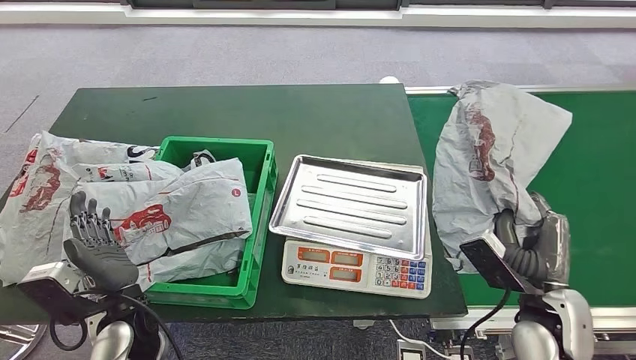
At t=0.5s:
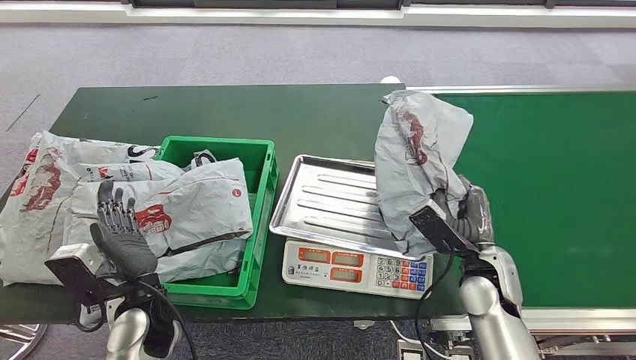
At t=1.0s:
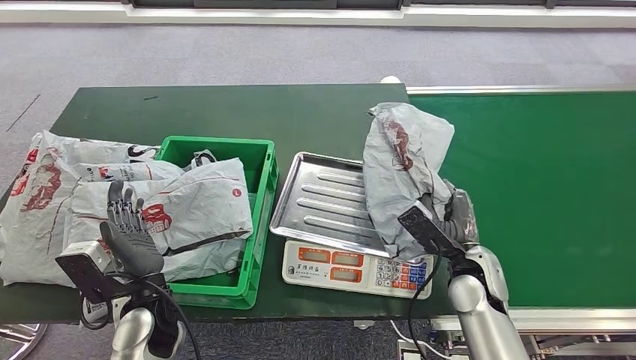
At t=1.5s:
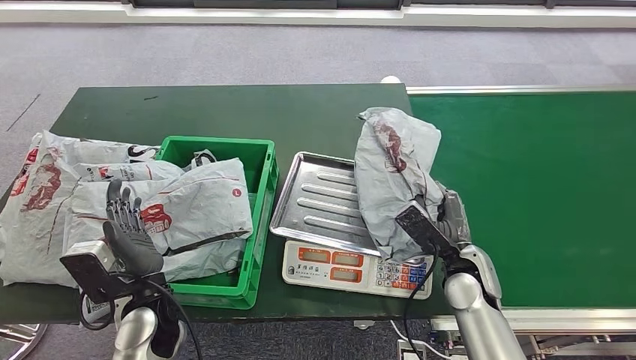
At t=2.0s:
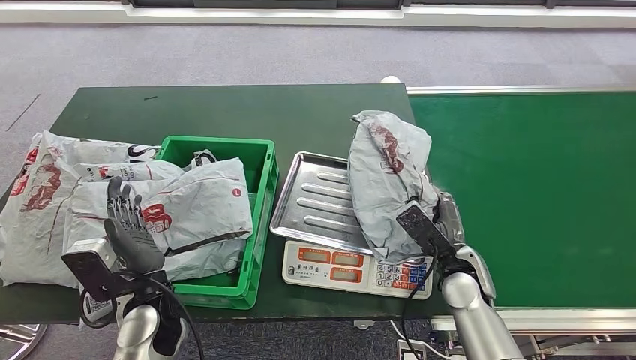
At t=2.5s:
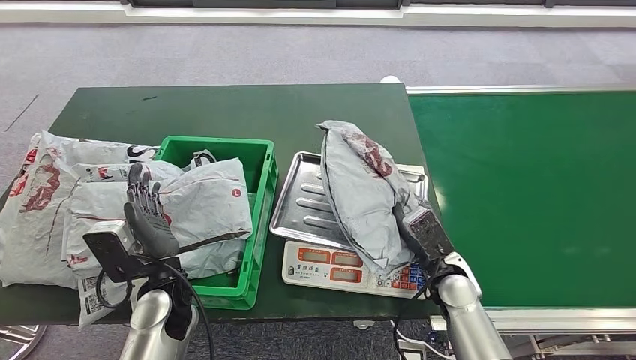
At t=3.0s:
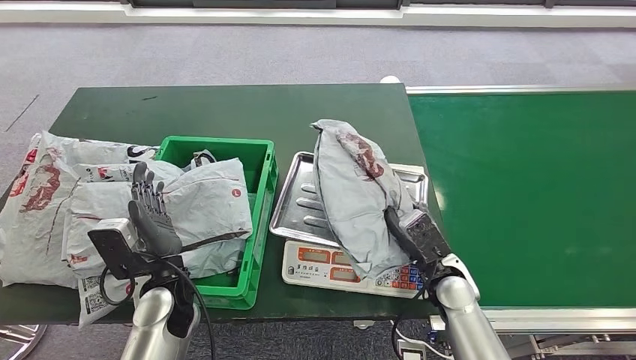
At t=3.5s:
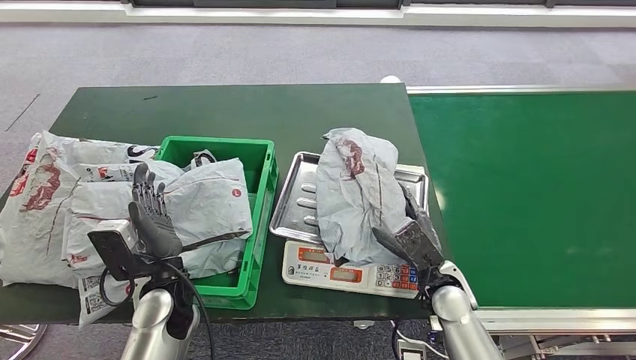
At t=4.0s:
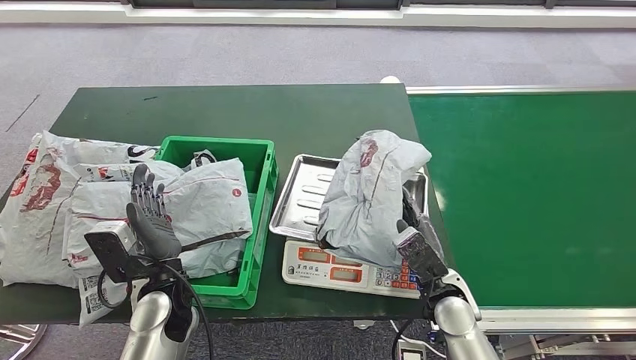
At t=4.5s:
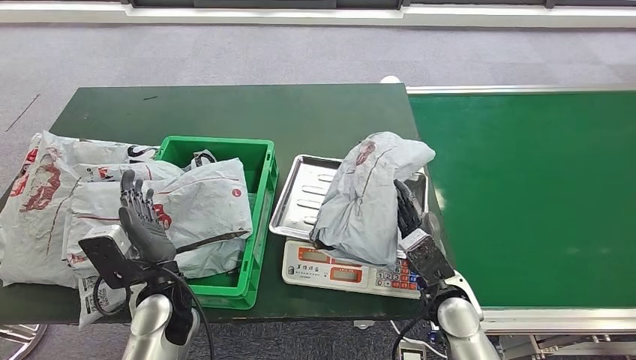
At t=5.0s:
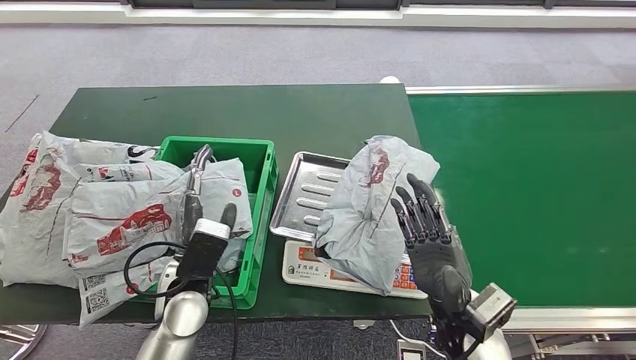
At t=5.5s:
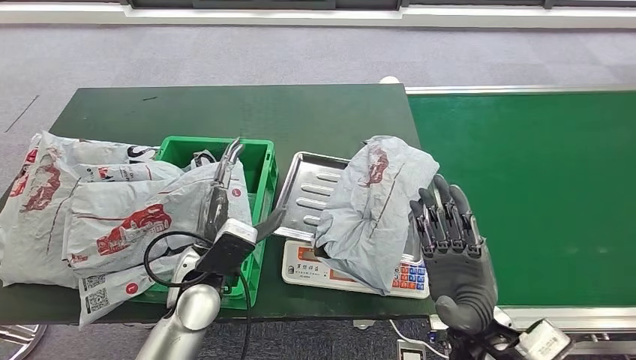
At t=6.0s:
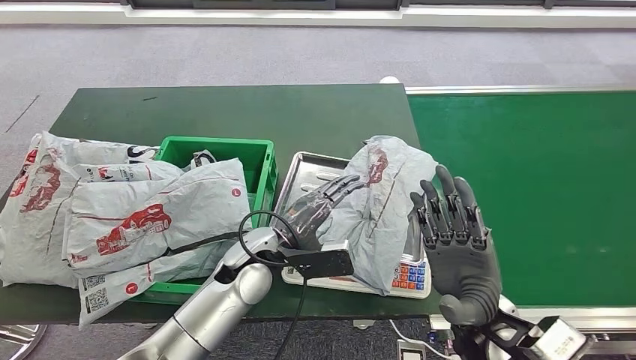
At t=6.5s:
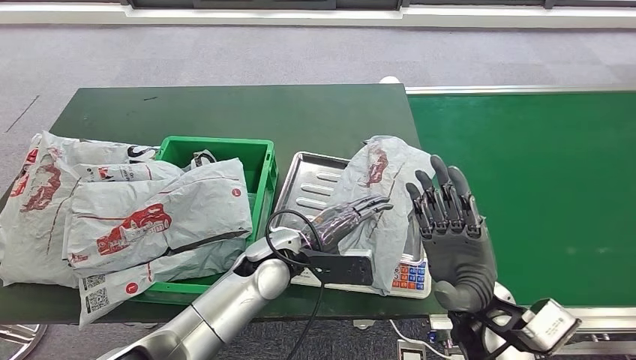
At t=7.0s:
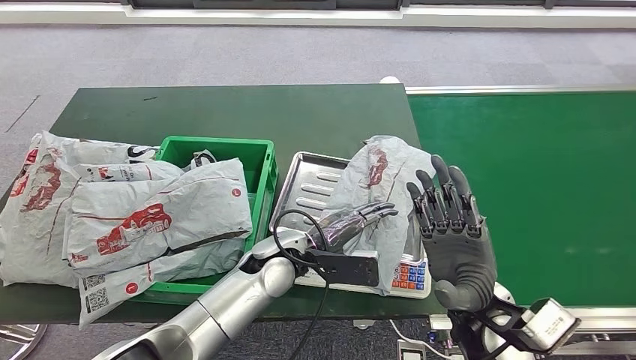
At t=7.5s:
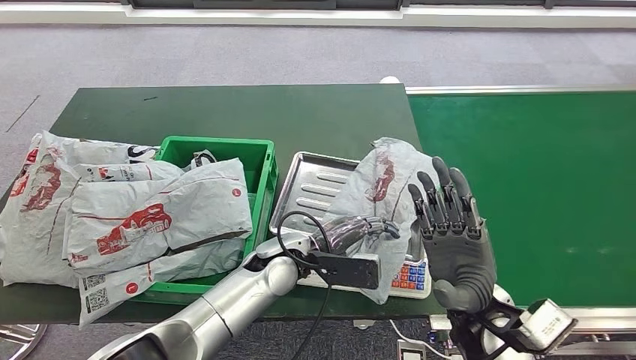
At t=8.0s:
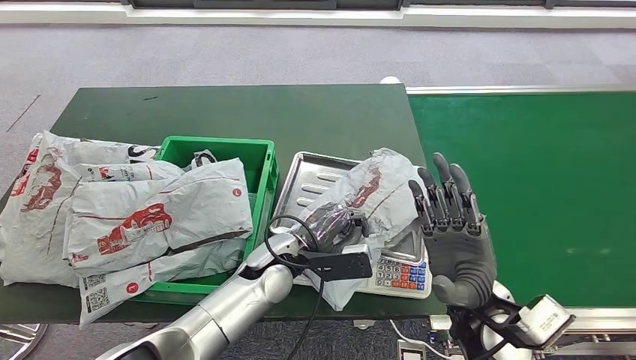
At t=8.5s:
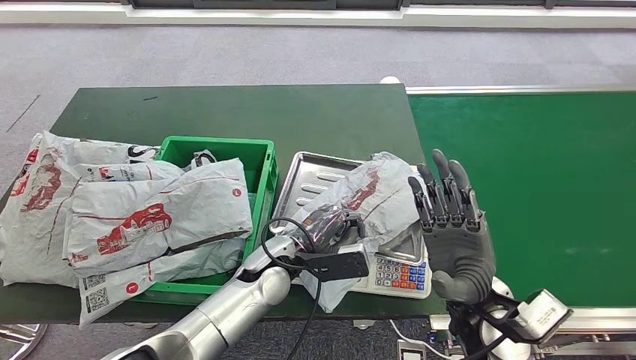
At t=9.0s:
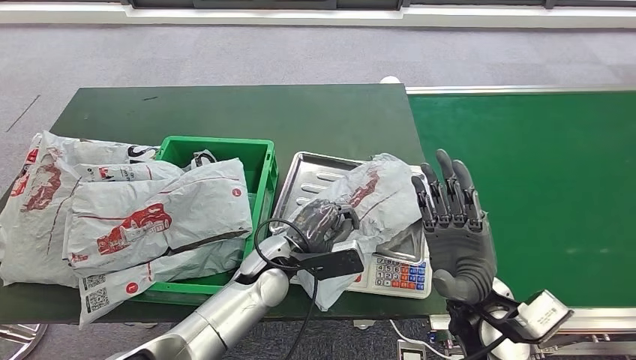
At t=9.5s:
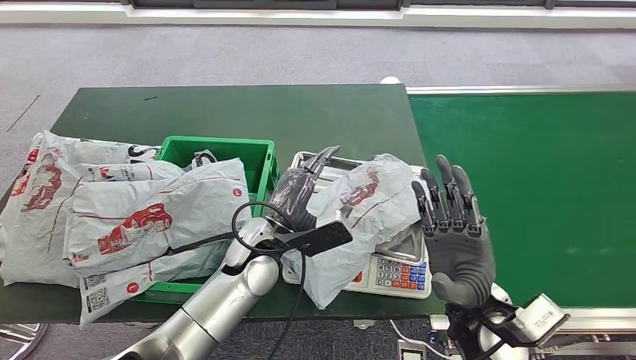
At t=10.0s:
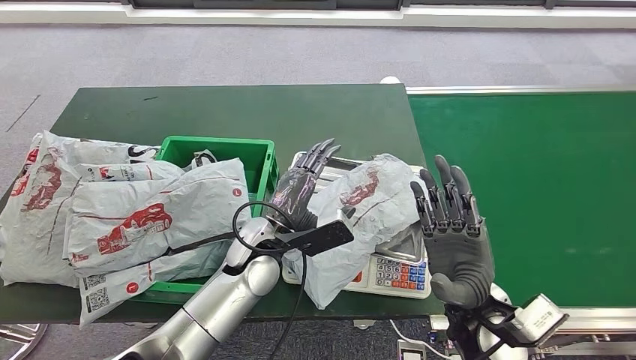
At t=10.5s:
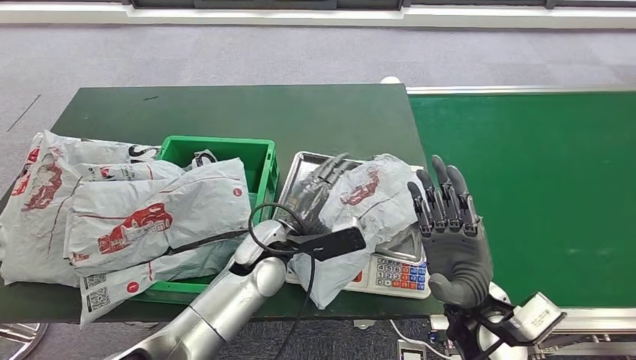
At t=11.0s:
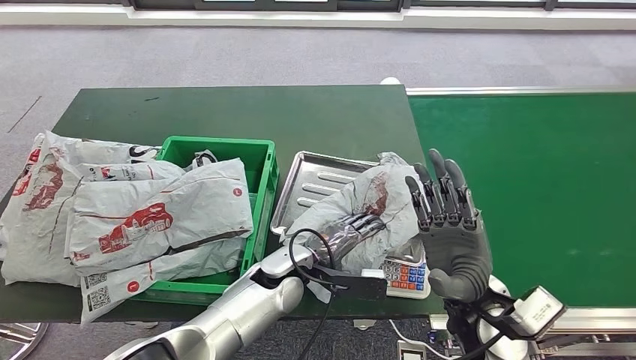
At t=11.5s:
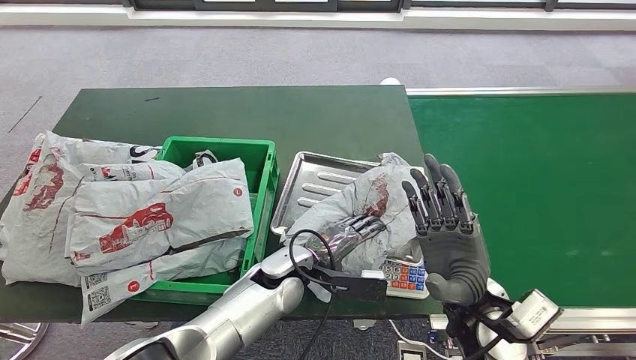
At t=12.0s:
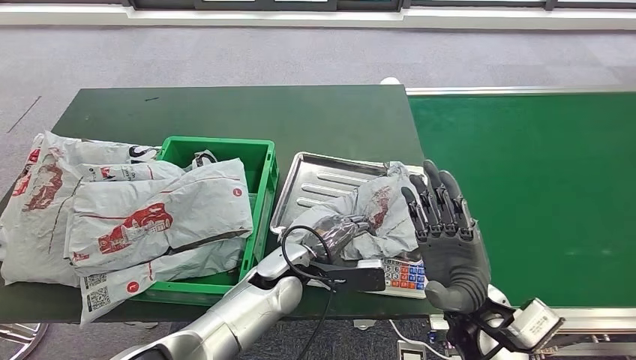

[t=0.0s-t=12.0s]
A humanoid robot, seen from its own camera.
Step, t=0.5s to t=5.0s: Place the parcel onto the inbound machine.
t=2.0s to t=4.0s: The right hand ends up roughly 5 cm from where it was.
t=4.0s to t=6.0s: The left hand goes some 15 cm to the right and forward. Meanwhile the right hand goes roughly 10 cm upward.
t=6.0s to t=8.0s: There are only small adjustments of the hands.
t=10.0s to t=12.0s: The left hand travels downward by approximately 5 cm.

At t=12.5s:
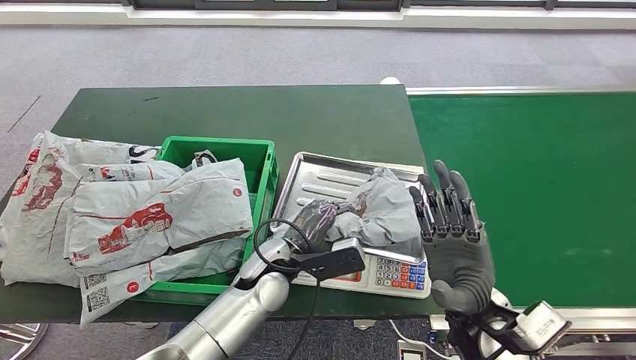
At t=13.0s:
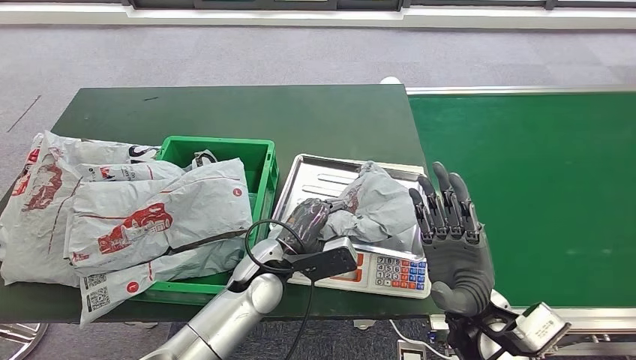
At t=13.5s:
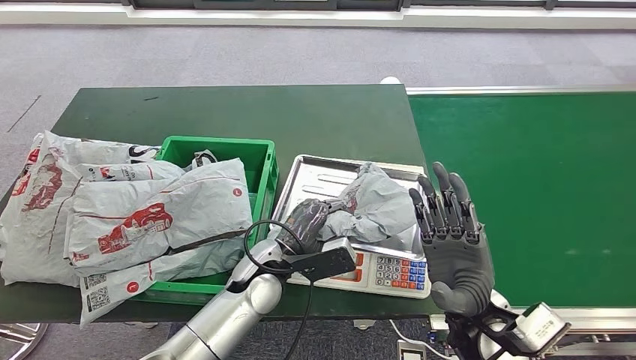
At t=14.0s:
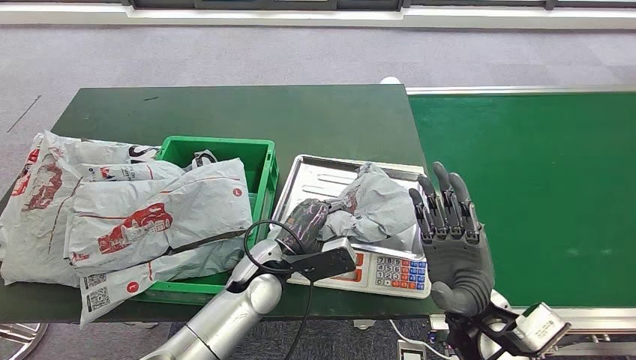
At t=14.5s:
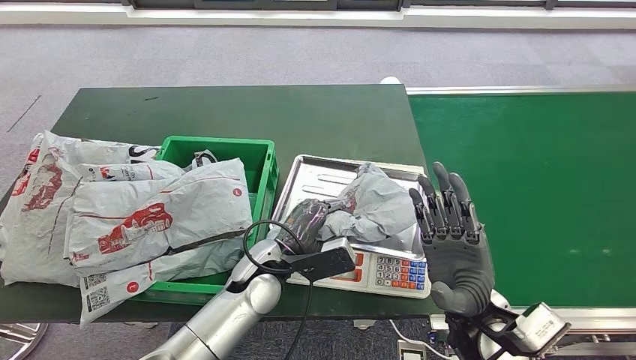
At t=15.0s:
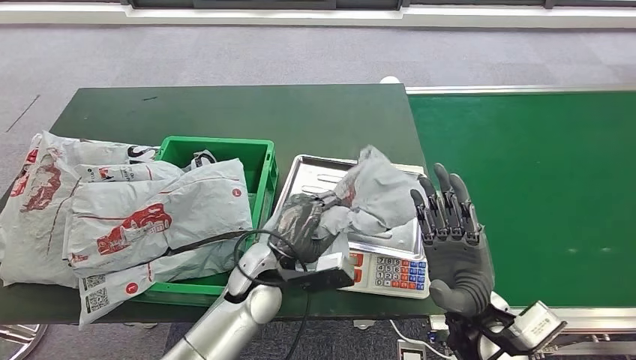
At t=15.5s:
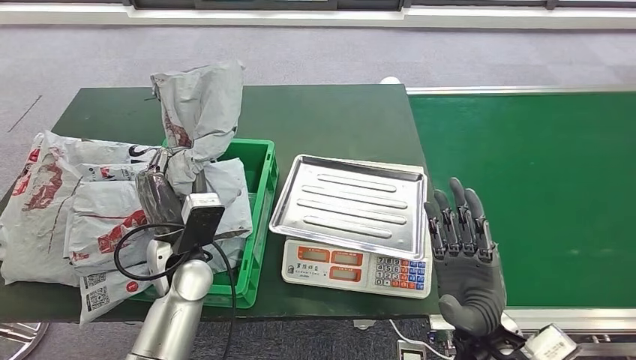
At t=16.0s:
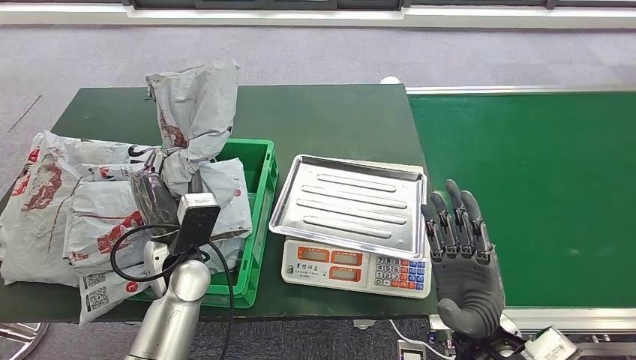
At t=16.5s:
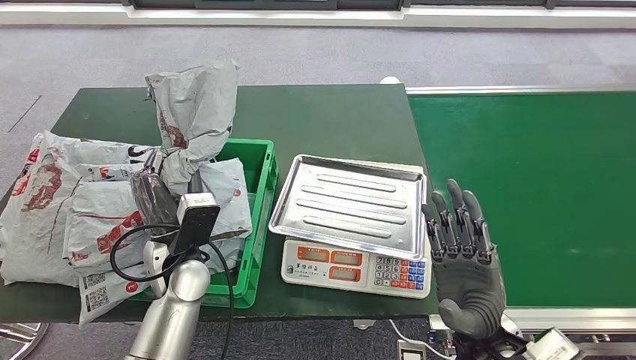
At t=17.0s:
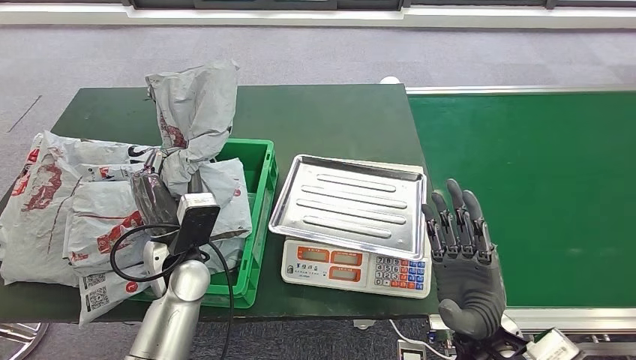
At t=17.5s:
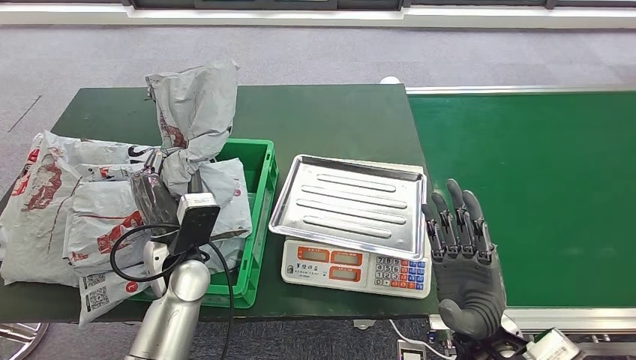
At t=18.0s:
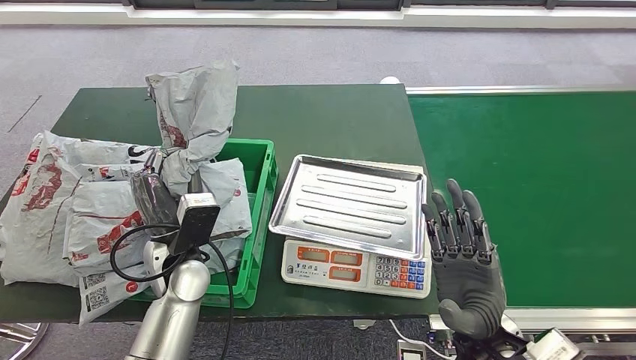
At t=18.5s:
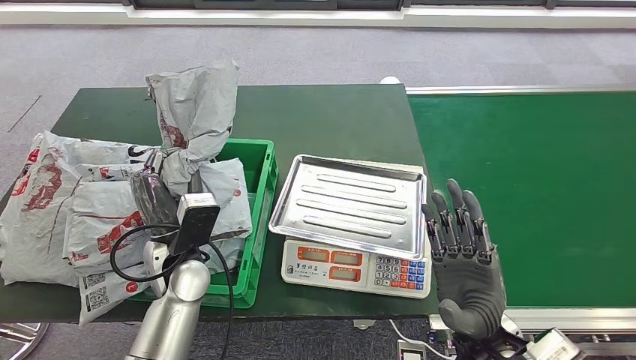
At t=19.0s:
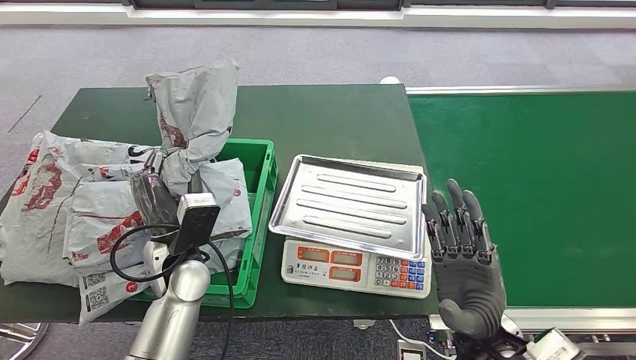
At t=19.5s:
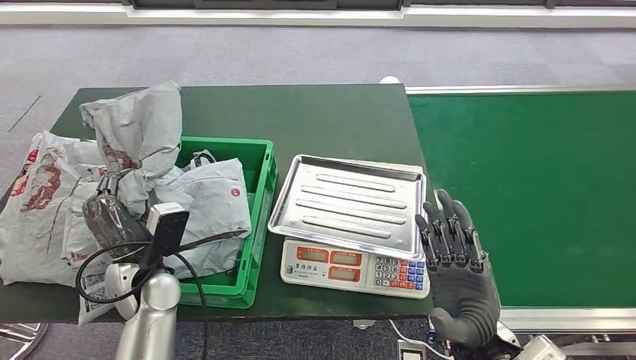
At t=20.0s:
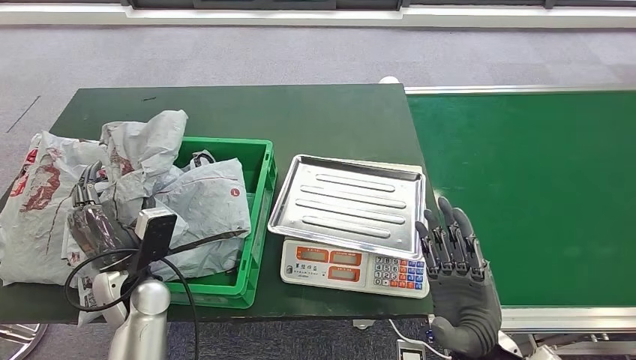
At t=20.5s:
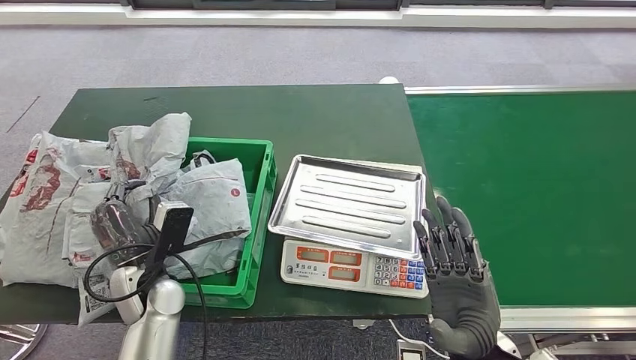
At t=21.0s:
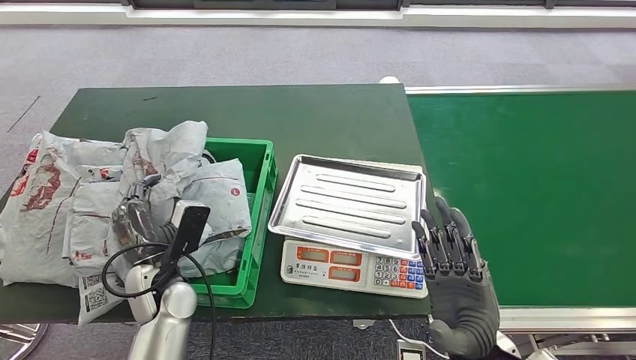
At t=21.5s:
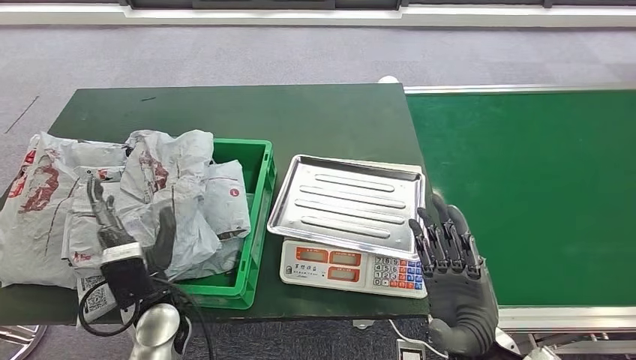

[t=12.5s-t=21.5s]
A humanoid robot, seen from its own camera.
Step, t=12.5s to t=15.5s: Pick up the parcel from the inbound machine.
Step, t=16.0s to t=21.5s: Place the parcel into the delivery box.
t=12.5s to t=14.5s: Neither hand changes place.
t=17.0s to t=19.5s: The left hand changes place by approximately 5 cm.
t=19.5s to t=21.5s: The left hand ends up some 5 cm from where it was.
